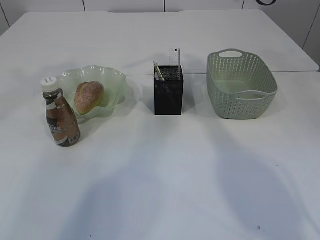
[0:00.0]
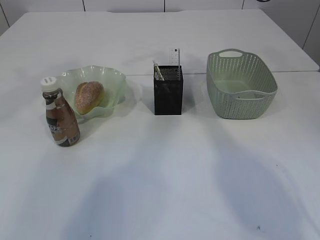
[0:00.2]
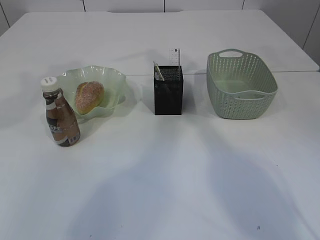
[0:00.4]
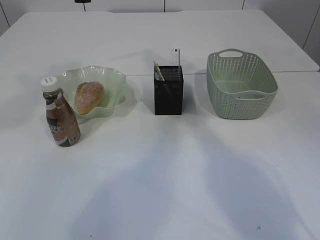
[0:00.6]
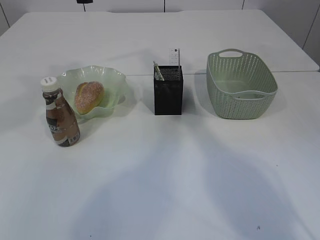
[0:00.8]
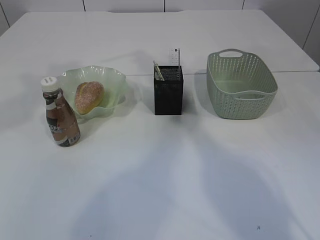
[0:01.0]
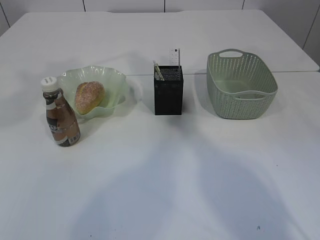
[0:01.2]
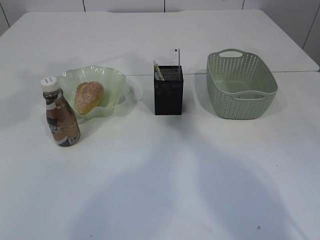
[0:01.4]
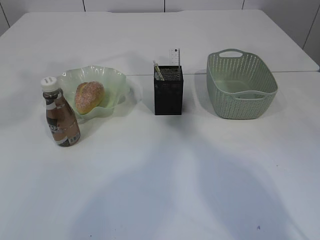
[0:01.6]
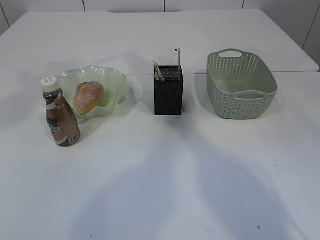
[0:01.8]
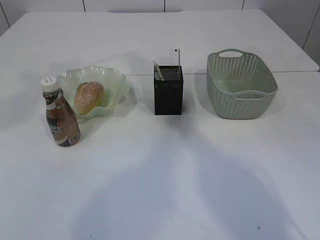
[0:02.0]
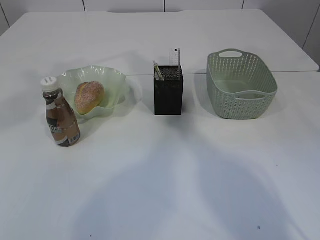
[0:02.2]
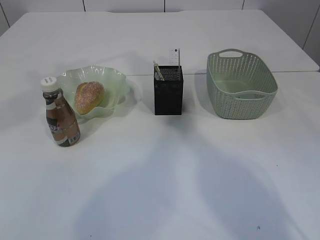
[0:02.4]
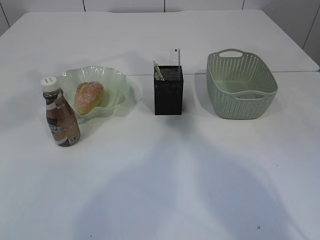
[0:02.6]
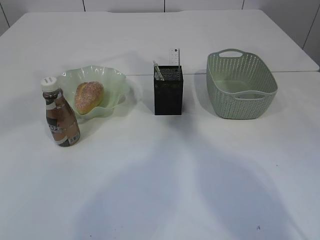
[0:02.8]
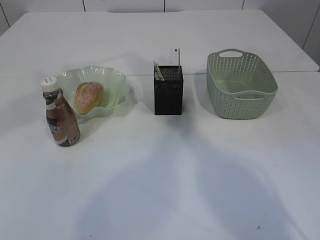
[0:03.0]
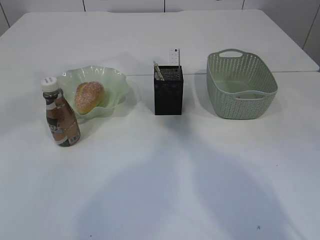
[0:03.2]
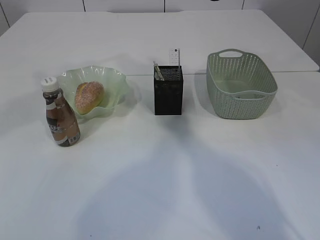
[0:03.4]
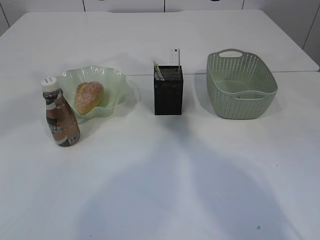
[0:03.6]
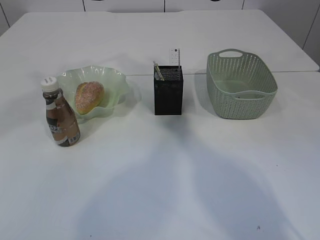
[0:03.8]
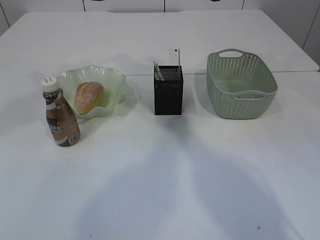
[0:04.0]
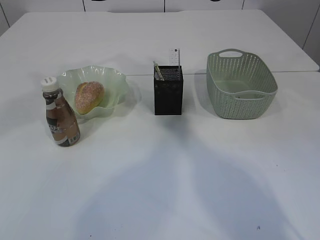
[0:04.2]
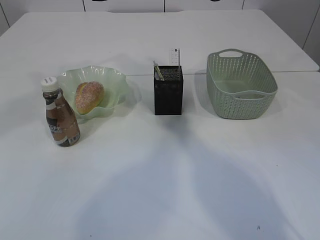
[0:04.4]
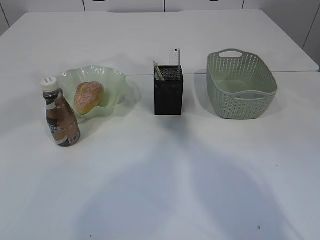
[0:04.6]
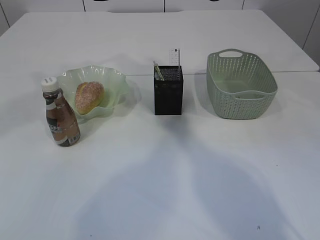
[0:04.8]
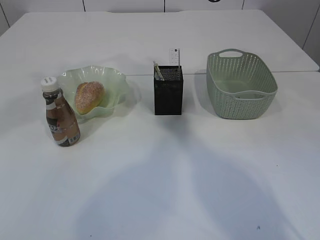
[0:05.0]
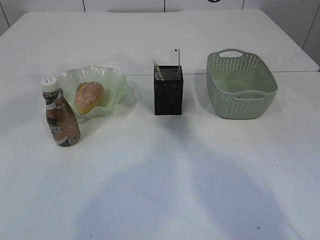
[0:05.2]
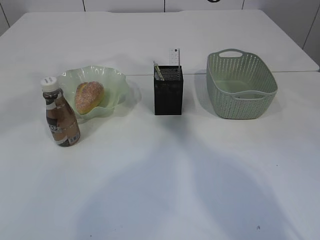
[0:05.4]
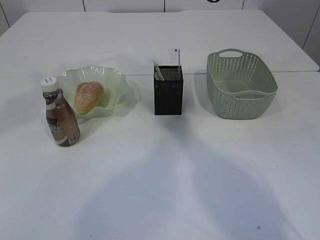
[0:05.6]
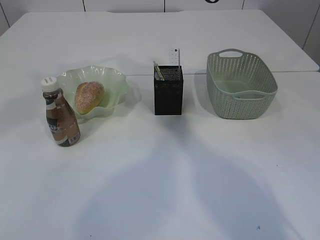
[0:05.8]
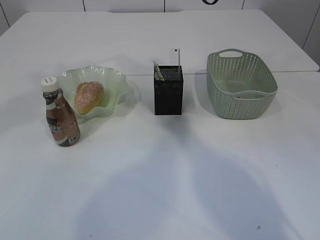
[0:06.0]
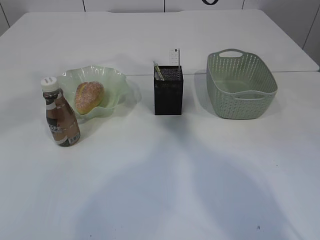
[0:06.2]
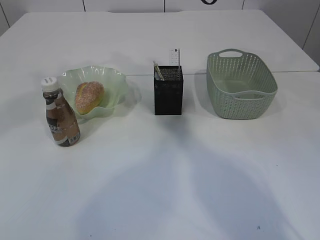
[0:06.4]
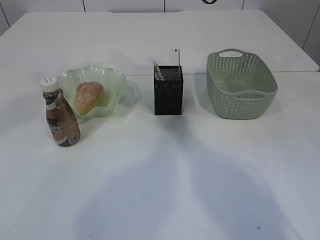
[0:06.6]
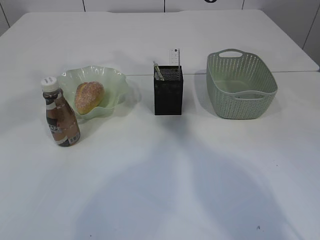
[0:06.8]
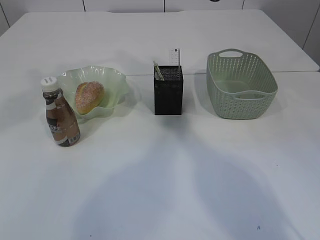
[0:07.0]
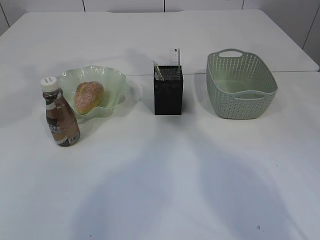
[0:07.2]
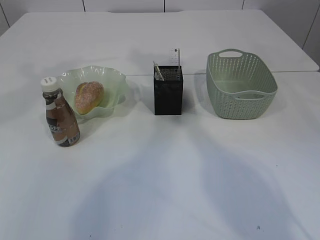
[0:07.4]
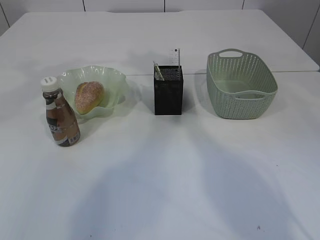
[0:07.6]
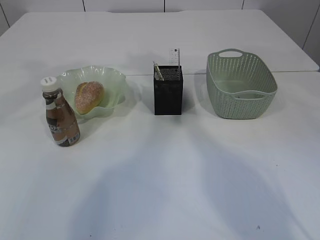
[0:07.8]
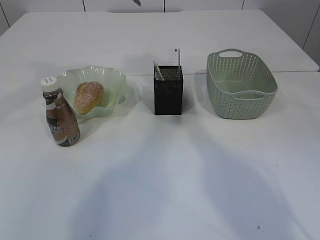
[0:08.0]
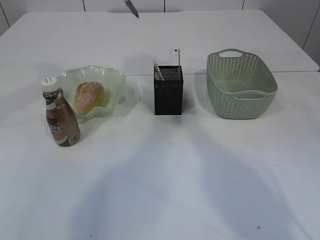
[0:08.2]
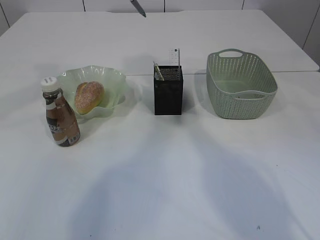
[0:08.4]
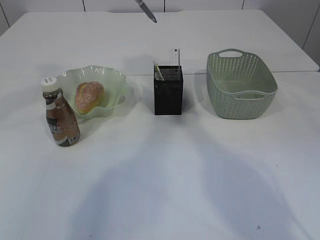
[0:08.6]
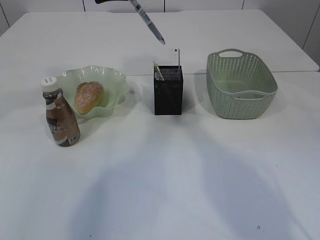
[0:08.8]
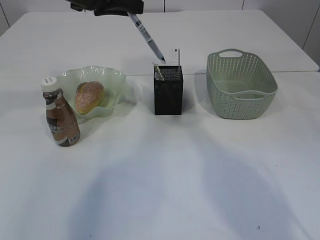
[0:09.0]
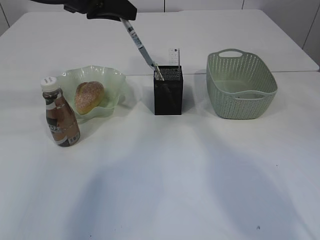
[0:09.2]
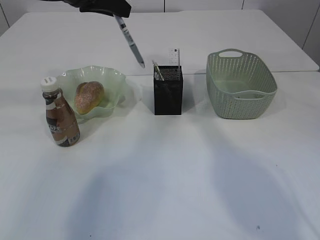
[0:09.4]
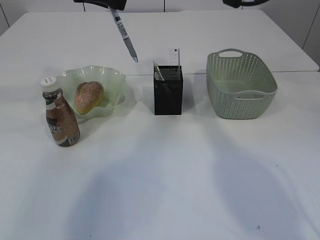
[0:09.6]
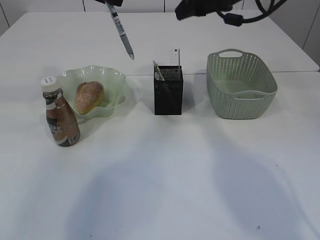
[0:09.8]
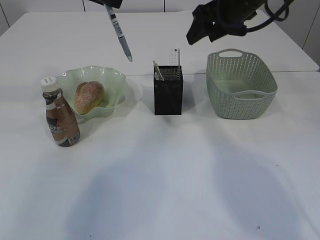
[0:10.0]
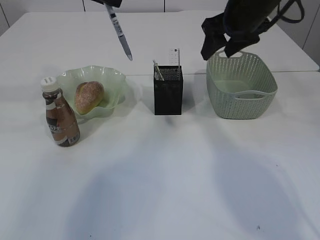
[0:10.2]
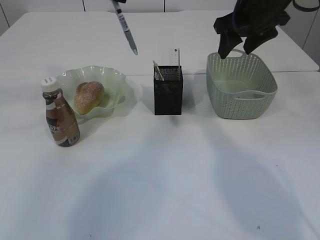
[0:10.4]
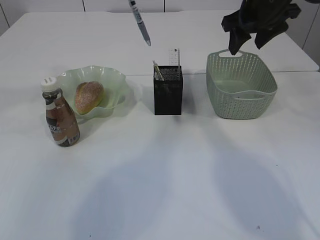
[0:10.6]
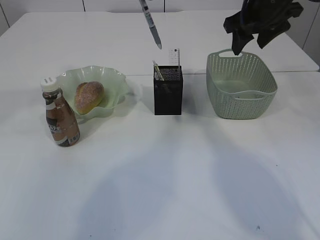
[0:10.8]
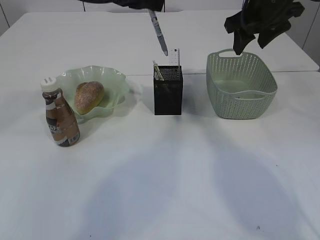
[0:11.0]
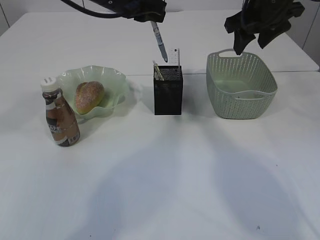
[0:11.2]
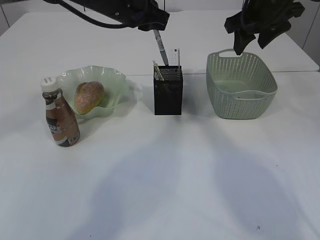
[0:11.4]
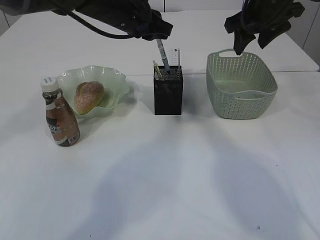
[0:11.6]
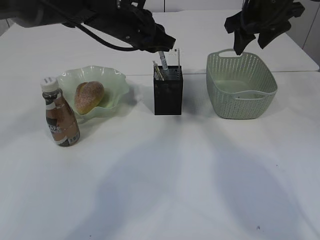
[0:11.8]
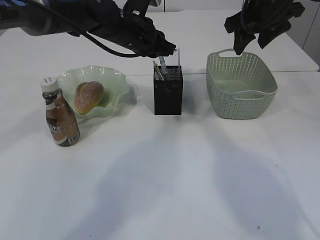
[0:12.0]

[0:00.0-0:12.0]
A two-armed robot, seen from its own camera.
Step, 0:00.0 to 0:09.6: transfer the pen to the left arm.
0:00.0 to 0:01.6: The right gripper heads to the left, covering some 5 cm.
0:06.0 to 0:07.6: The right gripper opens.
0:09.0 to 0:10.4: The right gripper goes about 10 cm to the right and downward.
0:10.4 to 0:12.0: The left gripper heads downward, to the right and forward, covering roughly 15 cm.

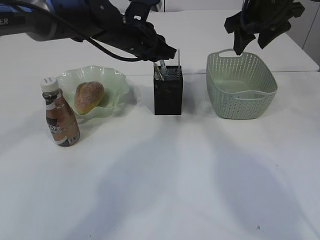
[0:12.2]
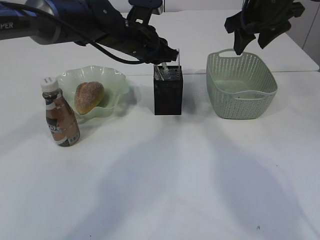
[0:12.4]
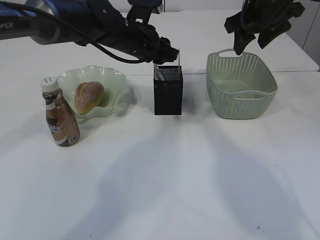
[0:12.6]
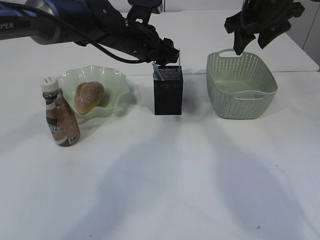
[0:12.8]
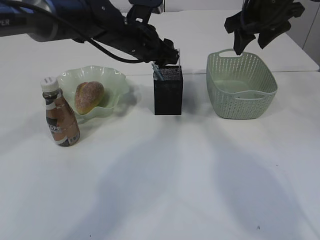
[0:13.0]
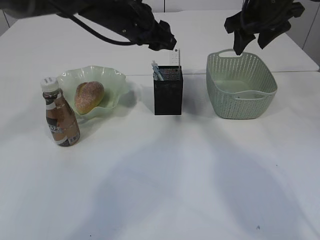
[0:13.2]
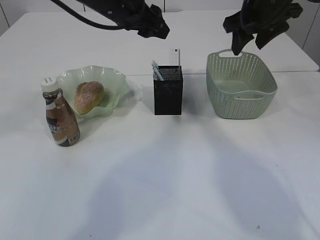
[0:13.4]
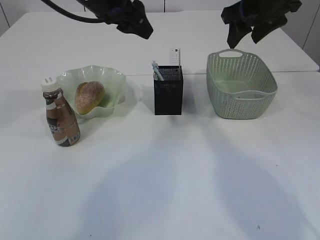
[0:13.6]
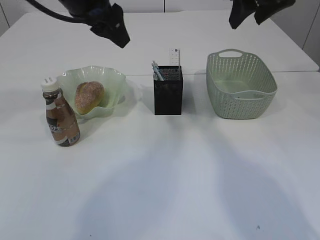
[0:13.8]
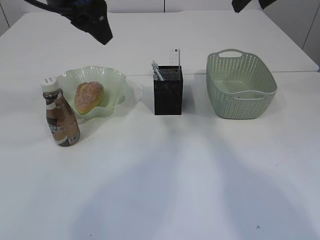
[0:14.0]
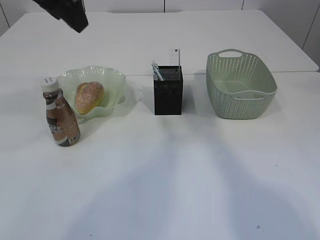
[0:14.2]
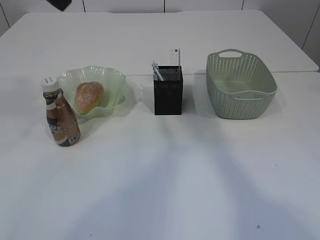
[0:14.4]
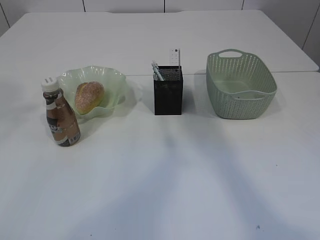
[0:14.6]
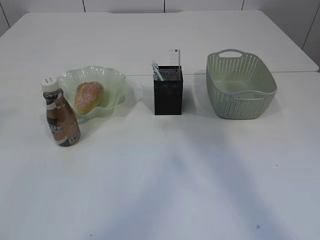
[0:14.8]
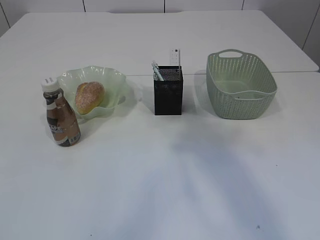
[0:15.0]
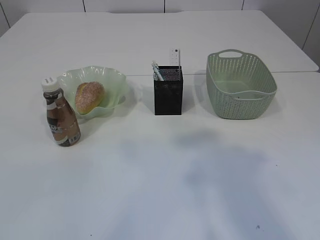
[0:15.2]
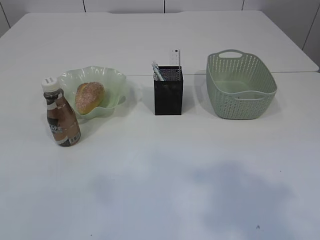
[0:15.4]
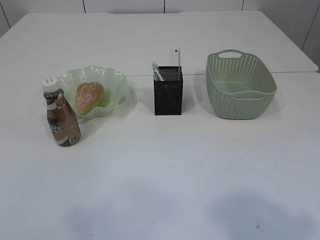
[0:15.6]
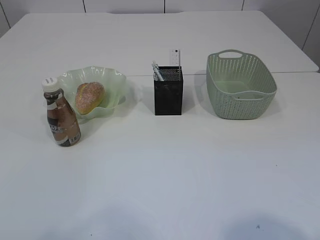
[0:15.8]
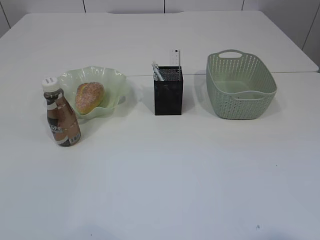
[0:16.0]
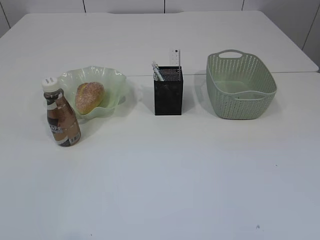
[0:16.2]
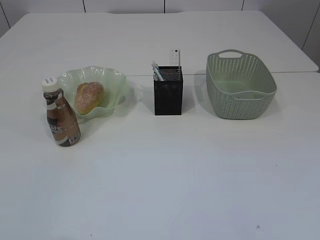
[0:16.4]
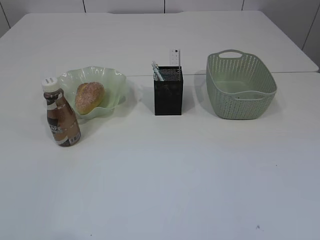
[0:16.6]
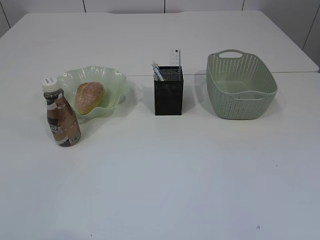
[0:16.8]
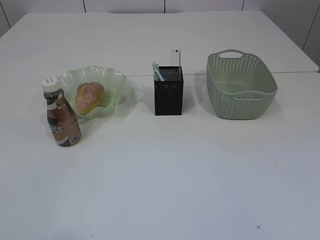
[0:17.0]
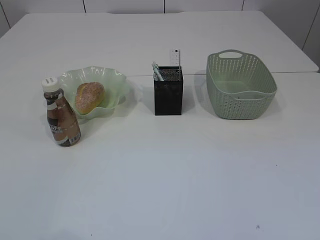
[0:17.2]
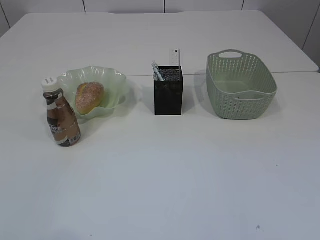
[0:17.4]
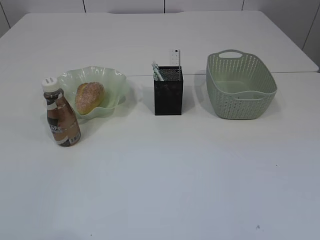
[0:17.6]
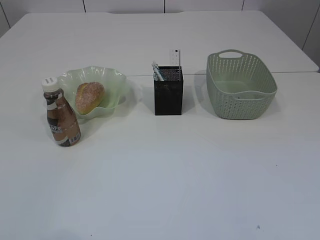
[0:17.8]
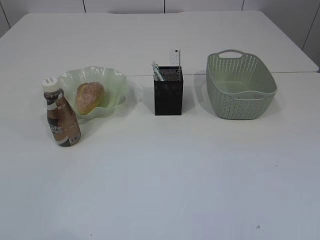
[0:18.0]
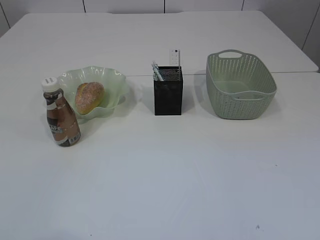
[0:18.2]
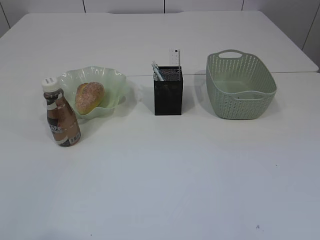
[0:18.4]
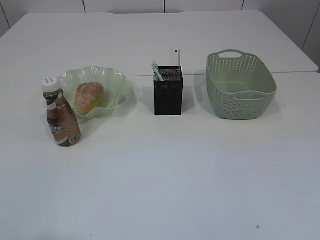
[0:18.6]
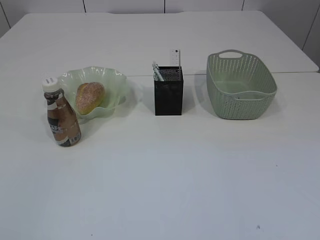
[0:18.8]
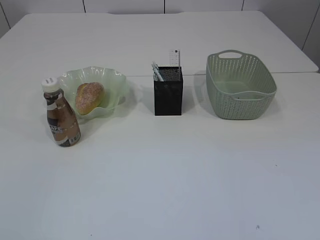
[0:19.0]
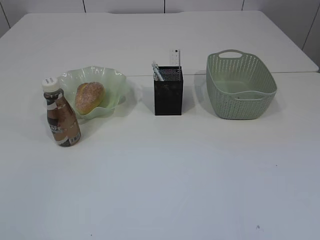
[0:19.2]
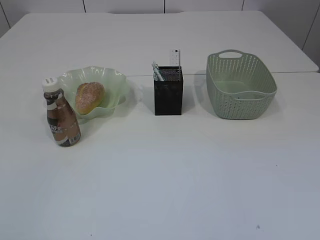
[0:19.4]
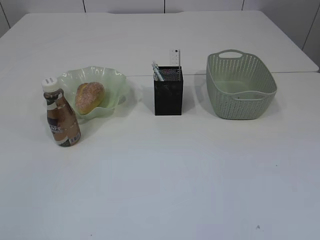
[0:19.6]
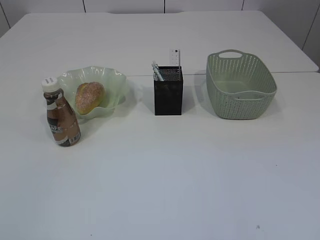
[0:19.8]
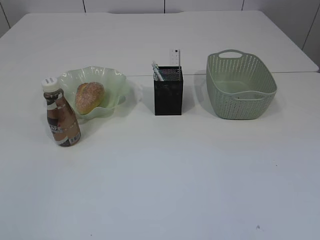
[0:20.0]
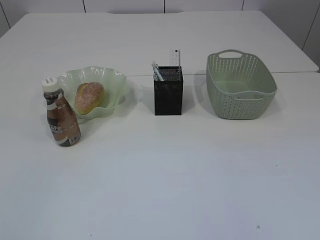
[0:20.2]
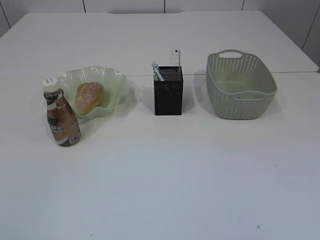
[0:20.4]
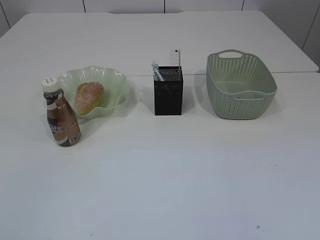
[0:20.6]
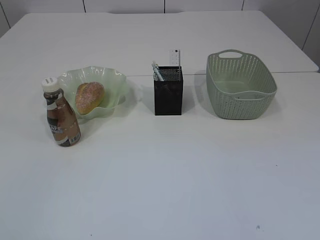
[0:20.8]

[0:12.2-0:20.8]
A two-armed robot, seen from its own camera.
0:12.2 to 0:13.6: The left gripper is displaced upward and backward by approximately 10 cm, and opens.
0:13.6 to 0:15.0: The right gripper travels backward and upward by approximately 25 cm; the left gripper moves backward, upward and to the left, approximately 30 cm.
0:15.0 to 0:16.6: The right gripper moves backward and downward, approximately 30 cm. Meanwhile the left gripper shifts roughly 25 cm downward and backward.
0:16.6 to 0:18.0: The two grippers keep their place.
0:19.4 to 0:20.8: Both grippers stay about where they are.

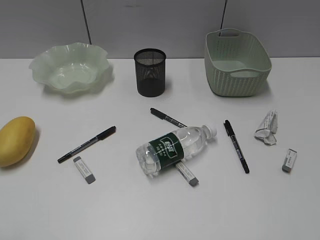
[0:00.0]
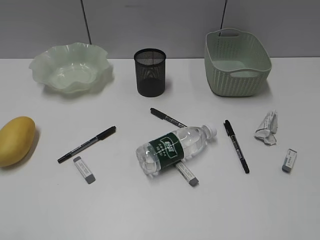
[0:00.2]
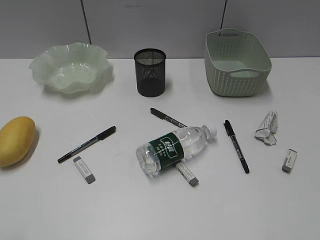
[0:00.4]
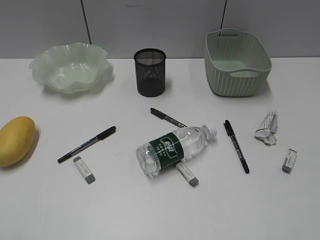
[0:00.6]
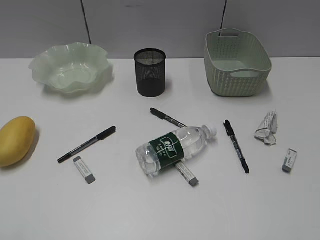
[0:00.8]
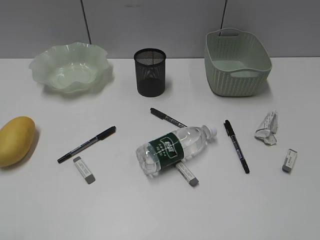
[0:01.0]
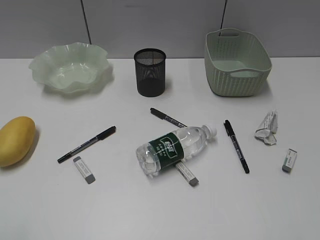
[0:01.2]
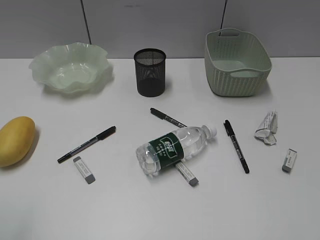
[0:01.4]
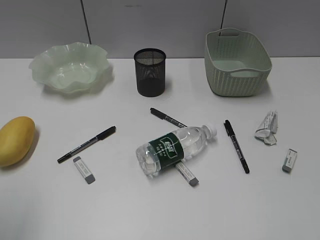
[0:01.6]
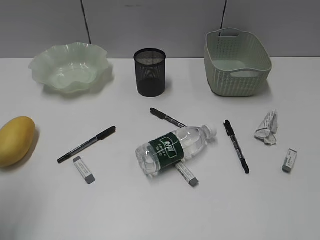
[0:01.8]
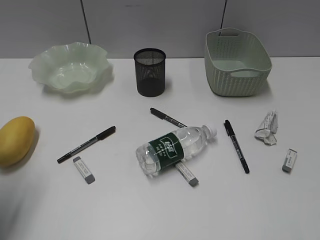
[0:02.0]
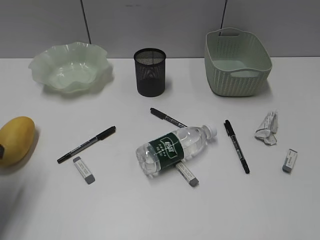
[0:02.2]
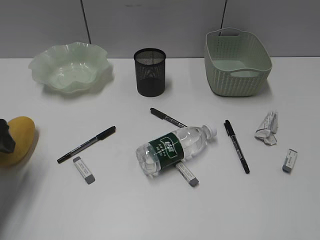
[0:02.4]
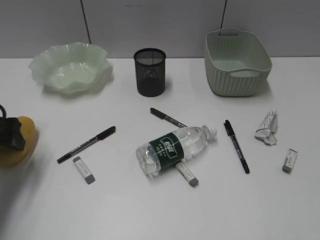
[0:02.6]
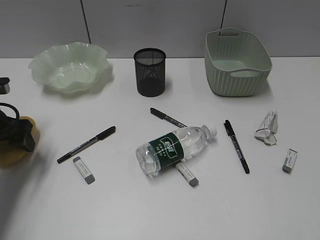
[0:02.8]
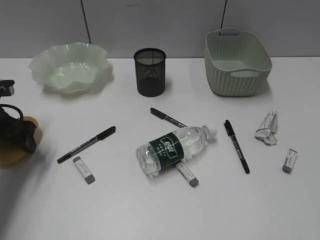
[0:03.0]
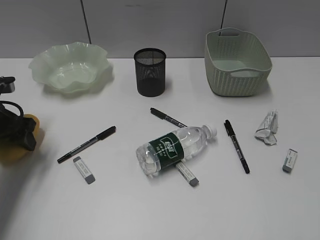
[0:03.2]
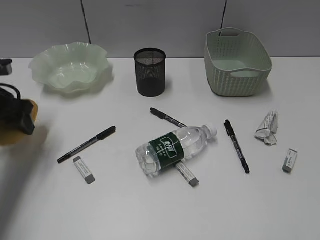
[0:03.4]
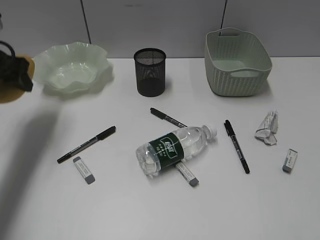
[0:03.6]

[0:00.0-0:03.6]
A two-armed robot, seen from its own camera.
Step, 0:02.2 to 0:03.0: Grasp the mango with left gripper.
0:01.8 to 0:03.6: The left gripper shifts approximately 20 cm forward.
